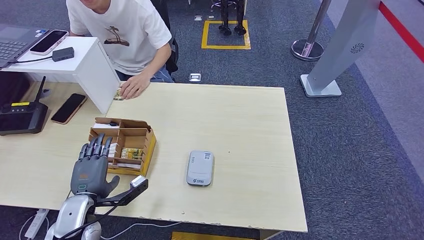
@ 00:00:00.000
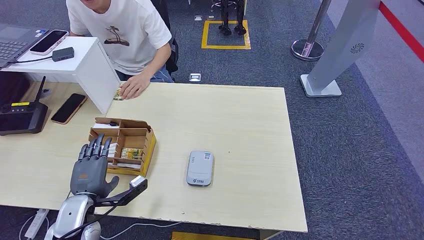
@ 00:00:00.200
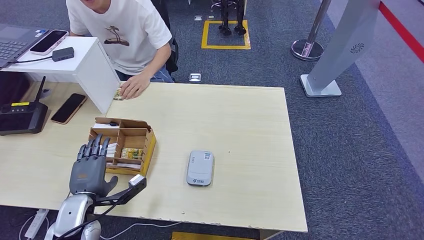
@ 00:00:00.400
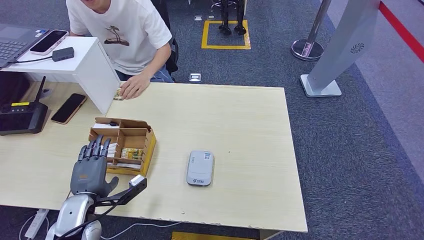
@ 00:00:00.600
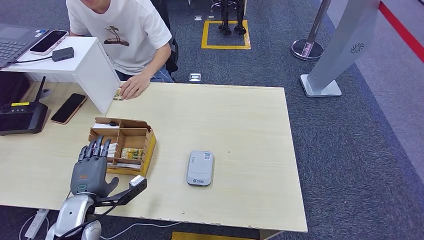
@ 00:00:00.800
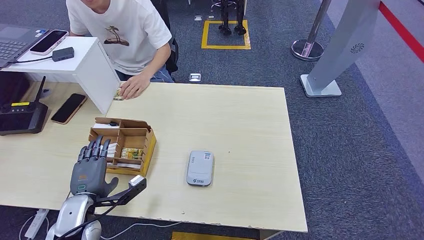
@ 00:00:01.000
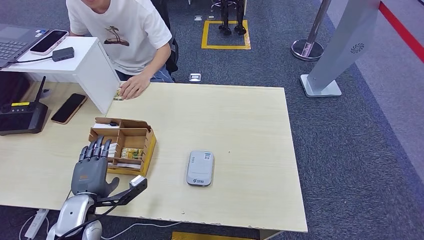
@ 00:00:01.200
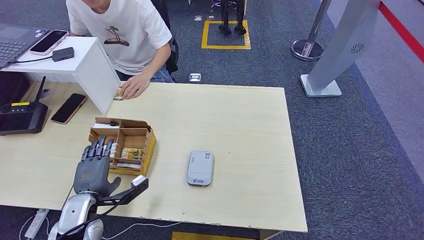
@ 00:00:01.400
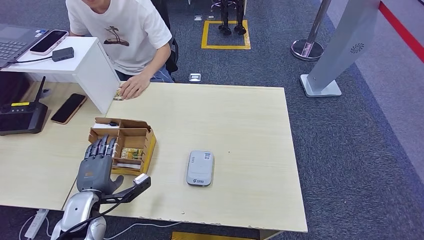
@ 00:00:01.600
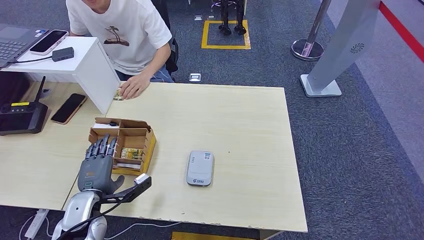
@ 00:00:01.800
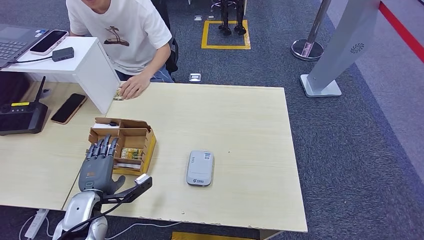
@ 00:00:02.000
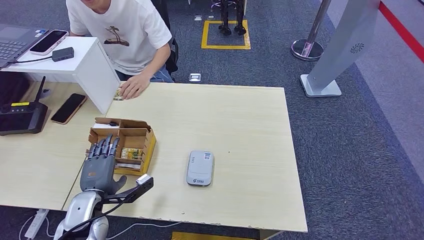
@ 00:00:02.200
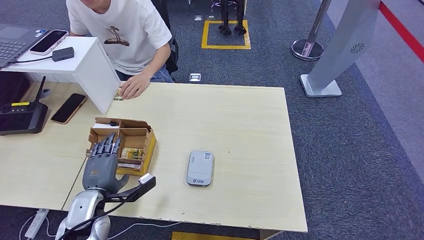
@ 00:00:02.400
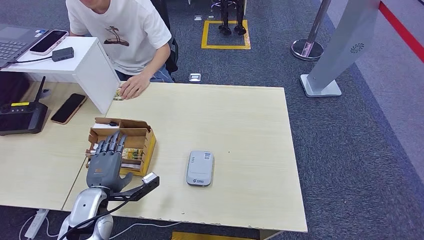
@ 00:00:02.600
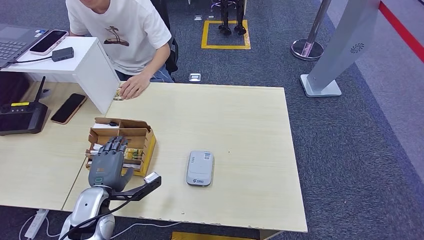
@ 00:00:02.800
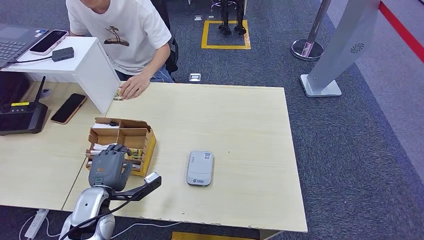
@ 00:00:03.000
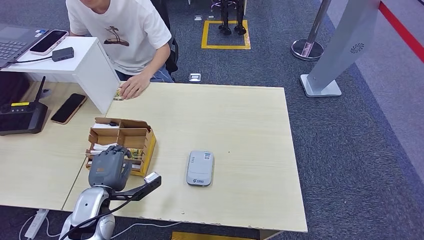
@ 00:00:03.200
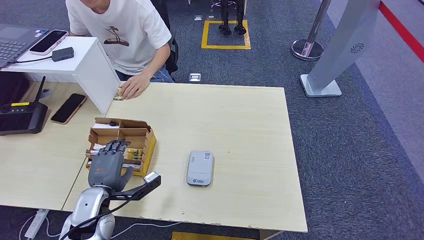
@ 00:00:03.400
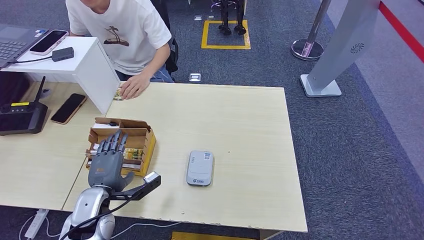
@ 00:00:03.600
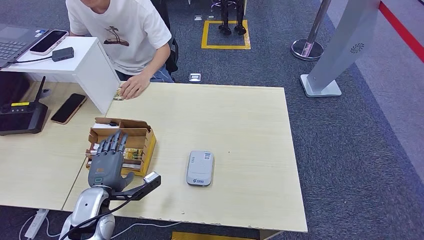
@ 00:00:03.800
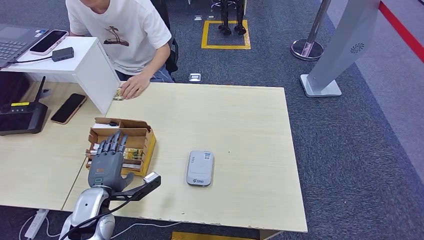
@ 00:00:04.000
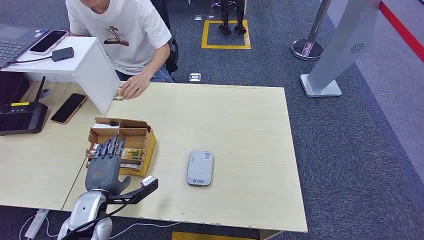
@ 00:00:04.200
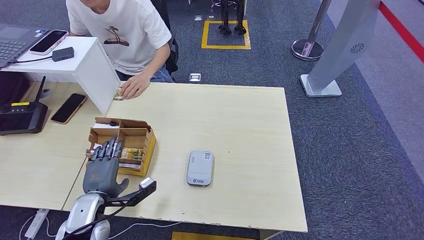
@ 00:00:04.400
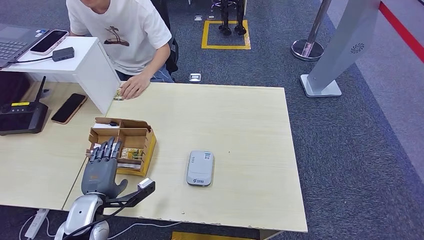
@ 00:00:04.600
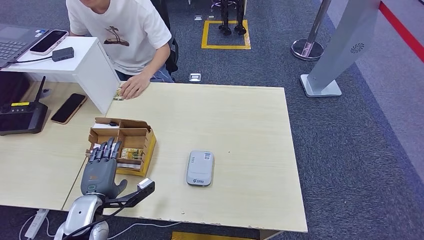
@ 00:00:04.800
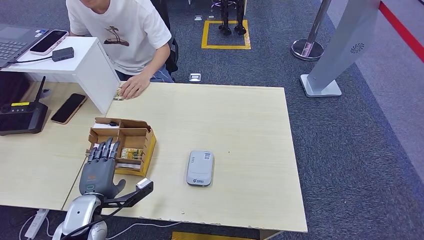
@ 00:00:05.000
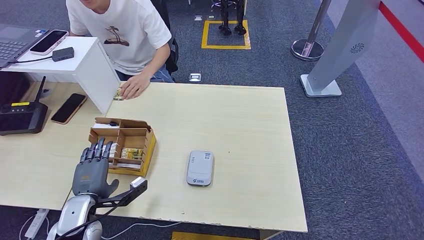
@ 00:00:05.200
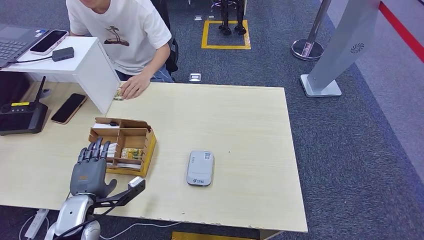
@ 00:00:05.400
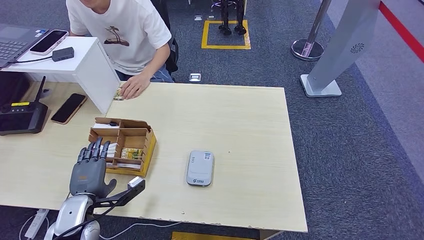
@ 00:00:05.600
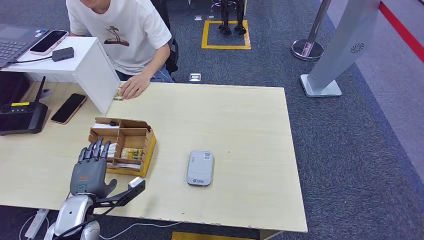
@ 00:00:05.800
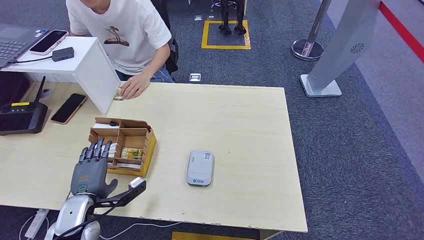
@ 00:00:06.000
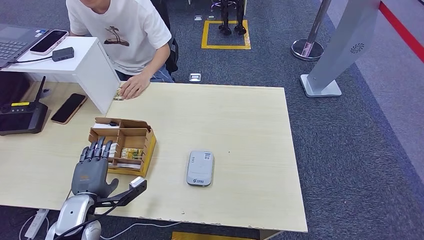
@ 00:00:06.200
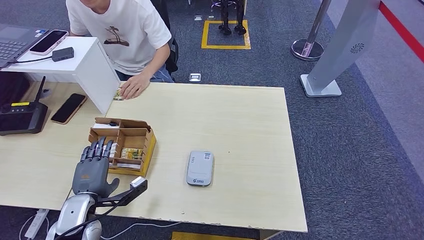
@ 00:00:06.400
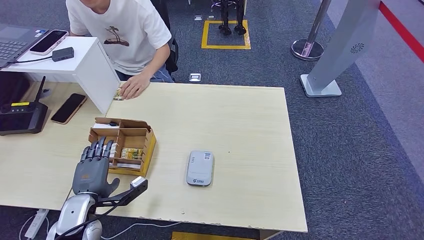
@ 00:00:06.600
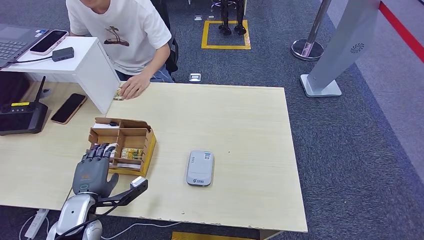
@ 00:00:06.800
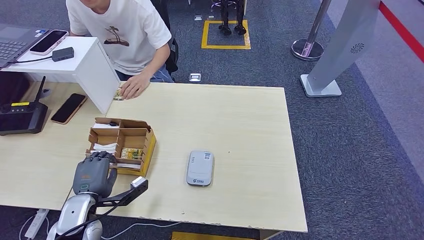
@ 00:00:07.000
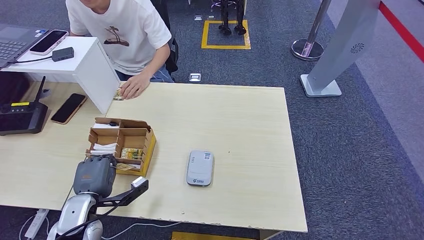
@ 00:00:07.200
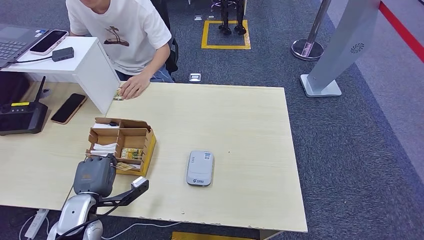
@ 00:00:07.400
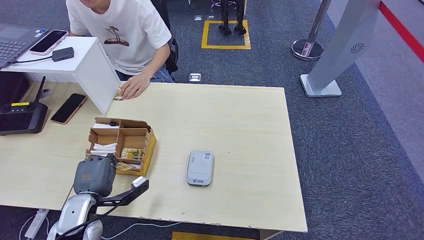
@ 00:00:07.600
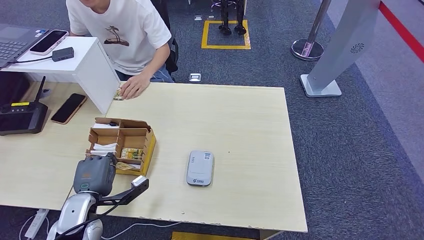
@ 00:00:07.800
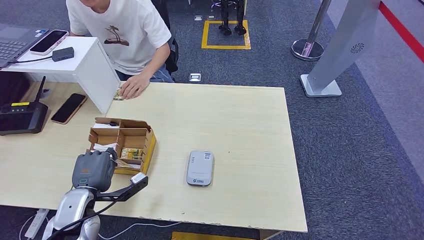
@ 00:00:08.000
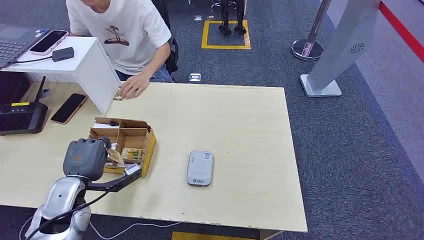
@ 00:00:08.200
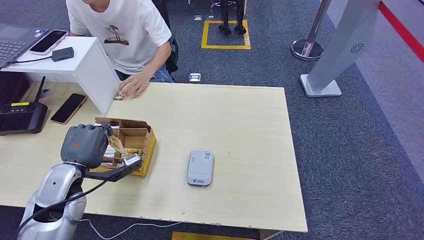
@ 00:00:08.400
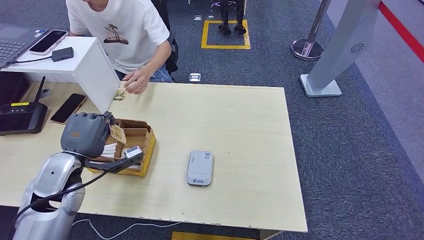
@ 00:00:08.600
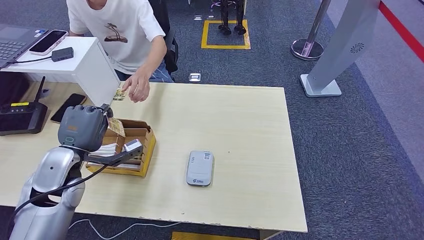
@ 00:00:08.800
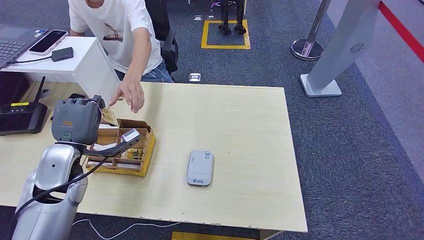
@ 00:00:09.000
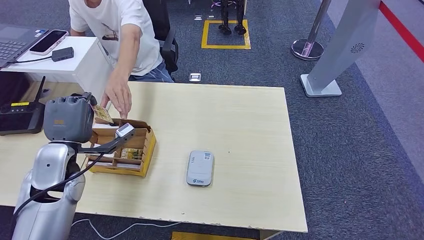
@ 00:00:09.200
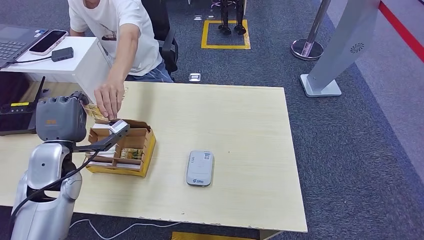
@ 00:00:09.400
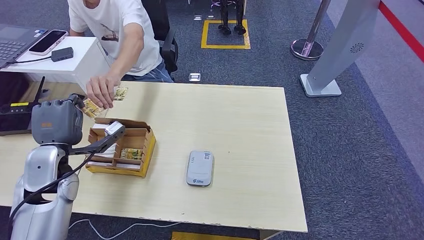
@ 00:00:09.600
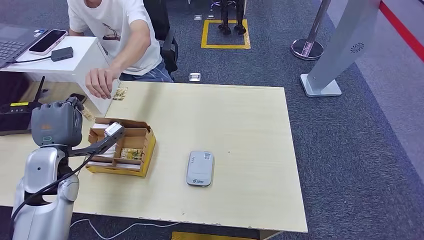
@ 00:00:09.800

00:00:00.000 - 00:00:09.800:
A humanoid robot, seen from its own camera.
Step, 00:00:00.000 - 00:00:08.200: Pick up the room key from the key card box.
Step, 00:00:08.400 - 00:00:09.600: Hand the room key to the person.
00:00:00.000 - 00:00:01.400: Both hands stay about where they are.
00:00:01.400 - 00:00:02.800: The hands make only small movements.
00:00:02.800 - 00:00:04.200: Neither hand changes place.
00:00:04.200 - 00:00:05.600: The hands make only small movements.
00:00:05.600 - 00:00:07.000: Both hands stay about where they are.
00:00:07.000 - 00:00:08.400: The left hand moves upward, about 5 cm.
00:00:08.400 - 00:00:09.800: There are only small adjustments of the hands.
